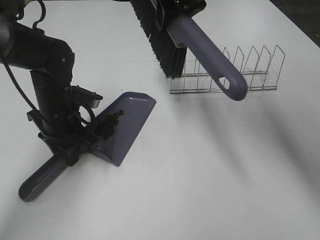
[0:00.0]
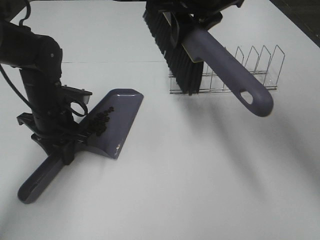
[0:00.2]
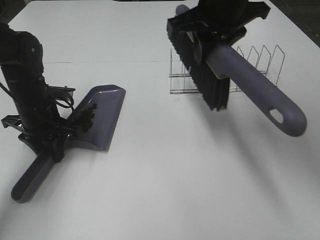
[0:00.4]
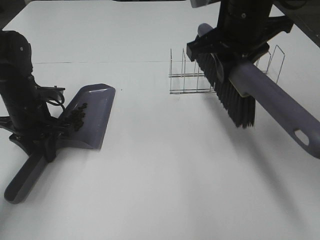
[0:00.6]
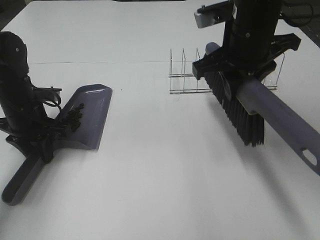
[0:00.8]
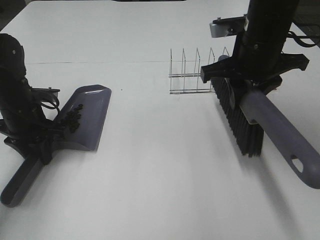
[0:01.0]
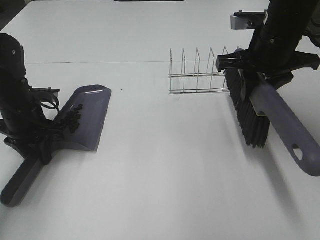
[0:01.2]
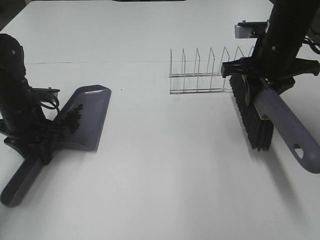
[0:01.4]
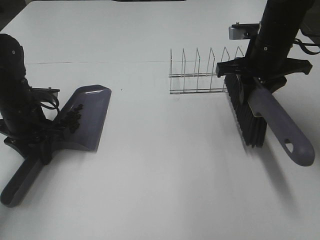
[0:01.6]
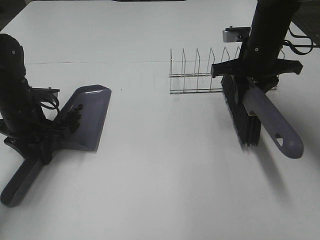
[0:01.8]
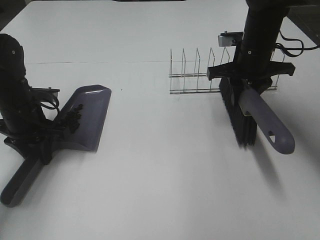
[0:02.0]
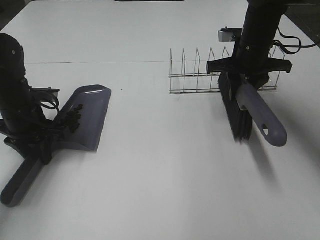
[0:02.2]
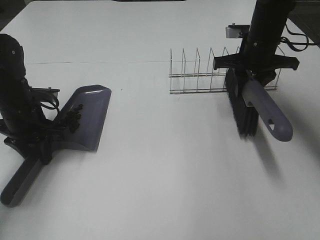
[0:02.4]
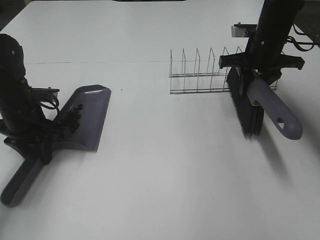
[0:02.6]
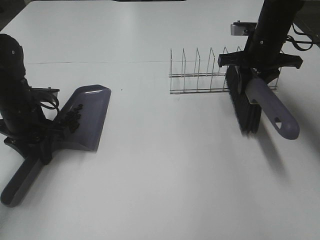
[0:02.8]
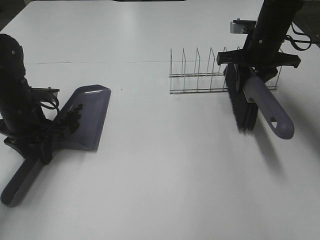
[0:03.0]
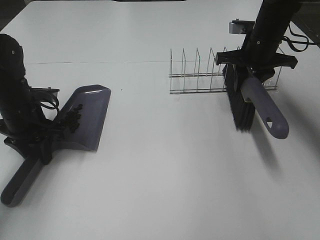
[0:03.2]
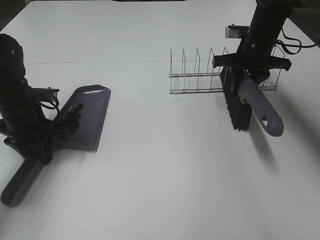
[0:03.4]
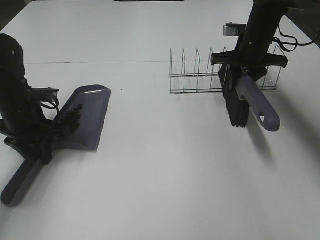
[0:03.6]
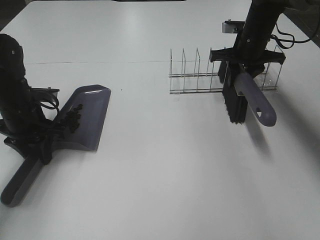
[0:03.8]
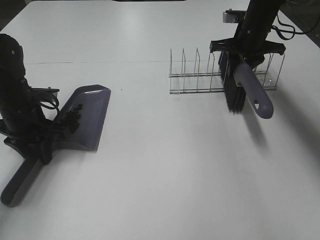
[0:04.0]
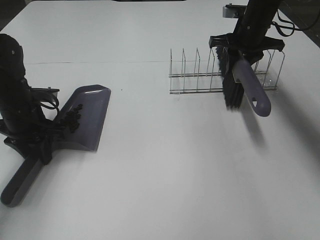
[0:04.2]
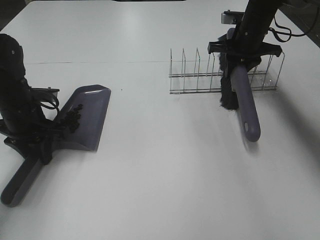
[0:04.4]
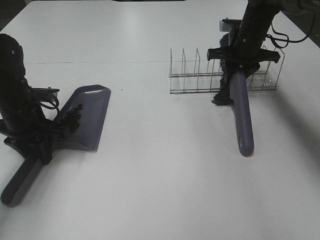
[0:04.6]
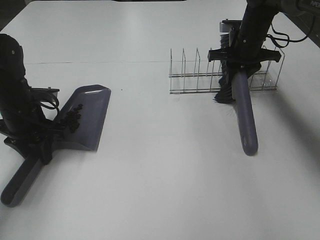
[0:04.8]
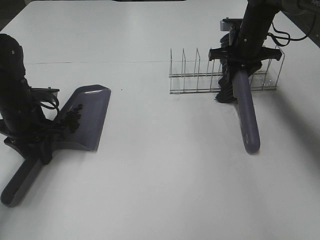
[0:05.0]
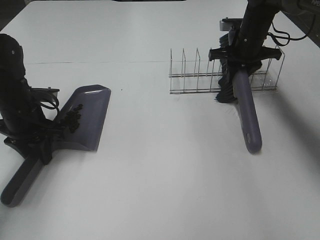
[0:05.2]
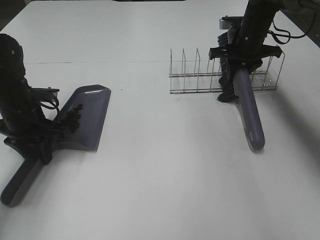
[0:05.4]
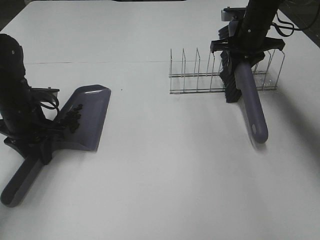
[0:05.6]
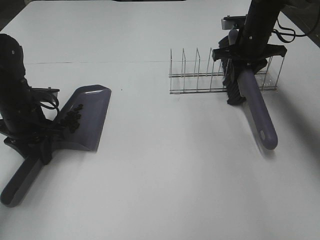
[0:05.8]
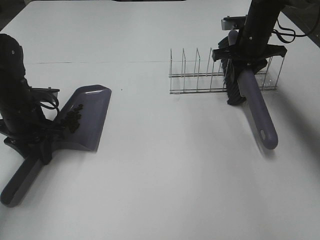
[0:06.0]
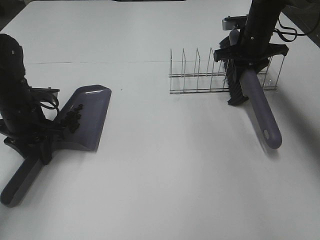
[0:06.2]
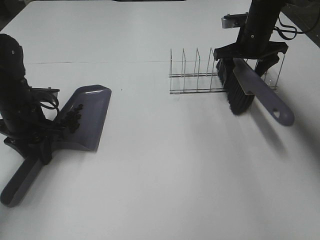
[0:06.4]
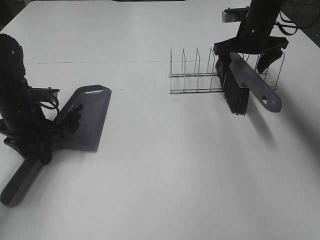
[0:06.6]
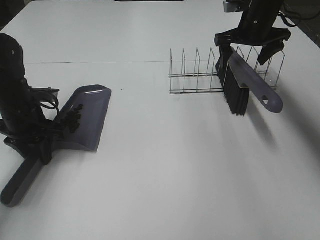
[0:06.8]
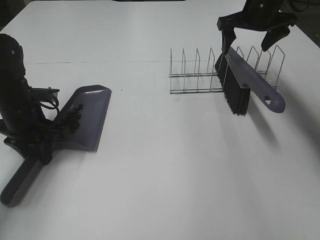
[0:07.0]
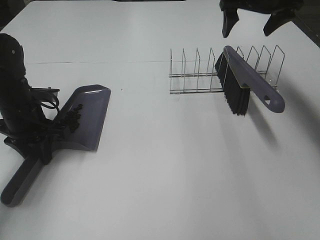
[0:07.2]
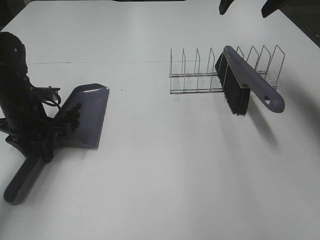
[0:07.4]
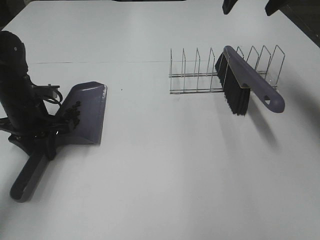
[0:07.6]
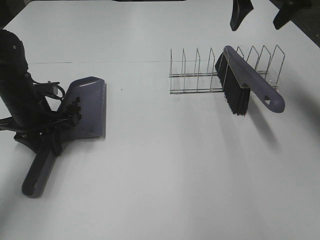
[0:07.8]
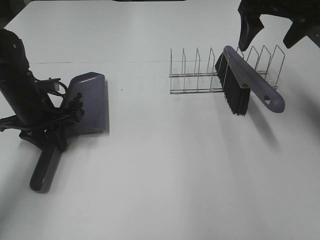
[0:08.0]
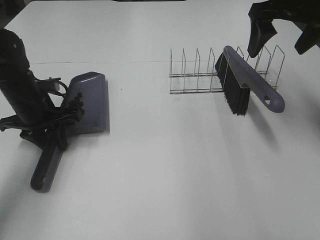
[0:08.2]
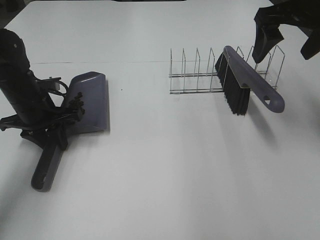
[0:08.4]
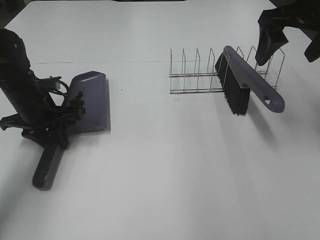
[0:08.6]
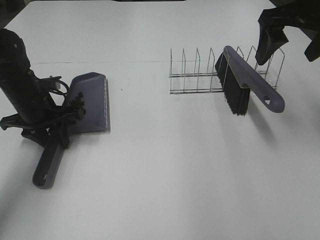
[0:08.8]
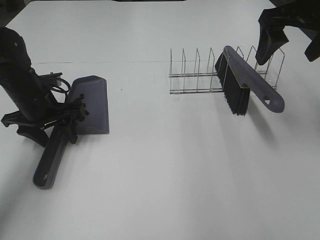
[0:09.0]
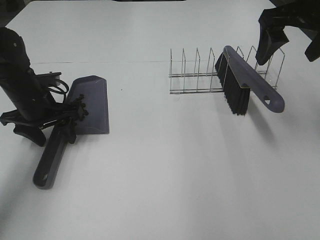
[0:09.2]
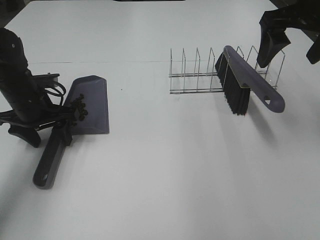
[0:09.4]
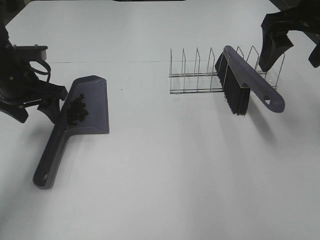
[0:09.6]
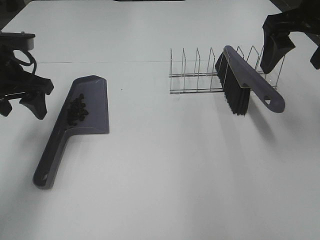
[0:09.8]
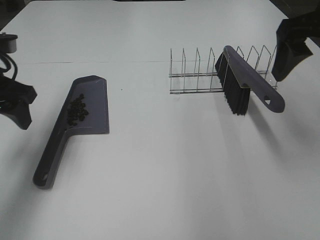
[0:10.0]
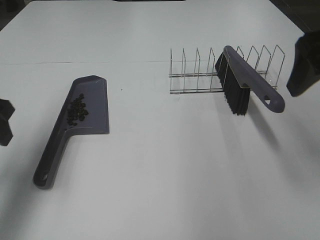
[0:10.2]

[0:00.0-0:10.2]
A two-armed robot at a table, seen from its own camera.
Task of the whole recording: Sweep Coffee Bean.
Step, 0:00.0 to 0:06.6: Right hand:place the broom on the rack.
0:00.0 to 0:01.4: The right gripper heads to the right and downward, covering approximately 15 cm; the left gripper shifts approximately 5 cm to the left.
0:01.4 to 0:03.0: The right gripper moves forward, some 10 cm.
0:03.0 to 0:04.4: The right gripper travels forward by about 5 cm.
0:04.4 to 0:05.8: The grippers stay close to where they were, moving slightly.
0:05.8 to 0:07.2: The right gripper travels upward by some 10 cm, and opens up.
0:07.2 to 0:08.8: The right gripper heads backward, covering roughly 15 cm.
0:08.8 to 0:10.2: The right gripper is displaced backward by approximately 10 cm, while the left gripper shifts about 20 cm upward and backward, and opens.

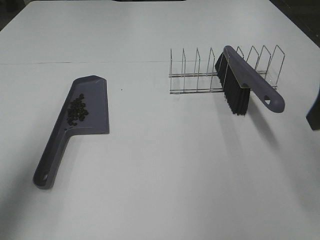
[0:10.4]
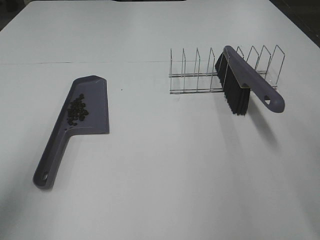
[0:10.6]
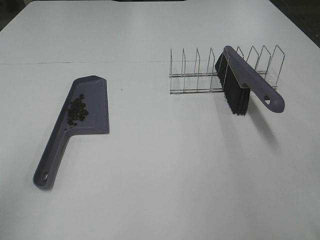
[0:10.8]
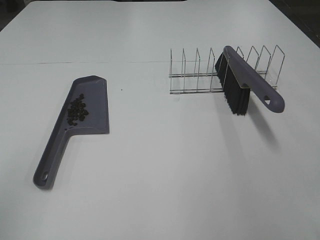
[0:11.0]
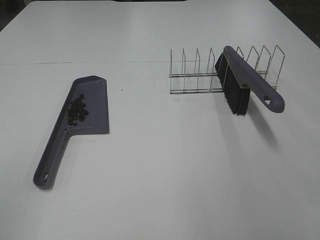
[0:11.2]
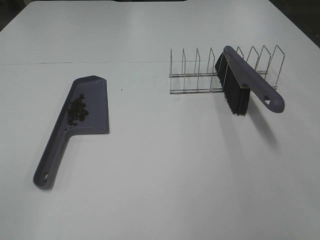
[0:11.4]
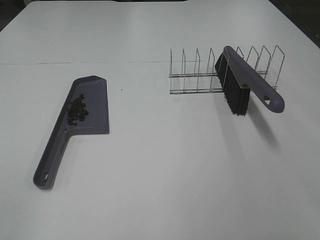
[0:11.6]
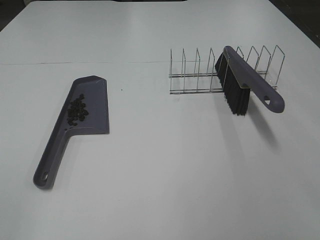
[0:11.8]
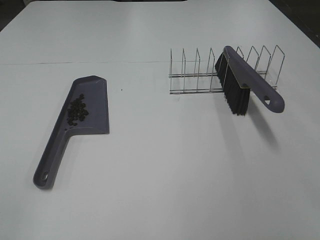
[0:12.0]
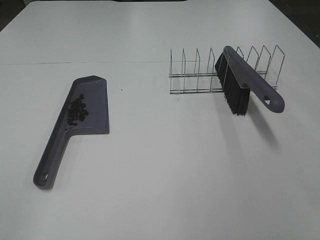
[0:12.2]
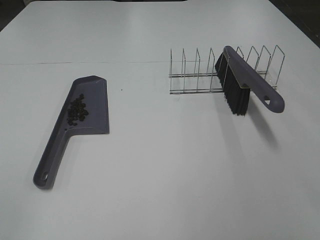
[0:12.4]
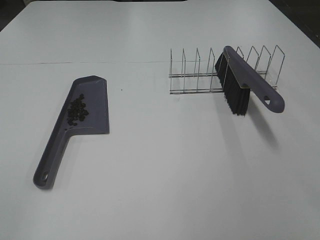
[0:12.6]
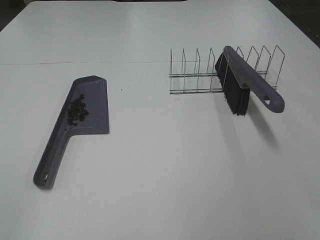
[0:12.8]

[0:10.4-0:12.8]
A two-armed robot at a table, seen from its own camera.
Task of the whole recording: Sweep Coffee Bean.
0:10.4 to 0:11.6: Both grippers move backward, approximately 20 cm.
0:11.6 to 0:12.8: Neither gripper changes place.

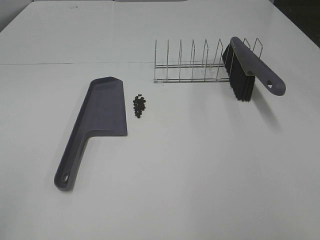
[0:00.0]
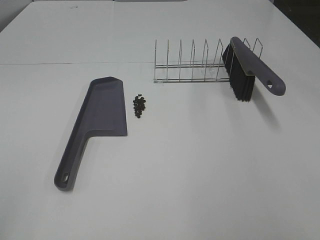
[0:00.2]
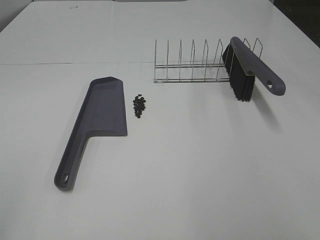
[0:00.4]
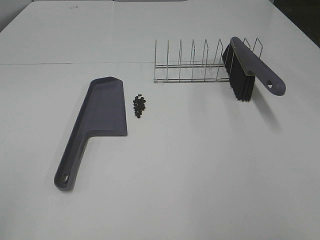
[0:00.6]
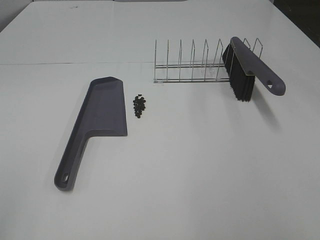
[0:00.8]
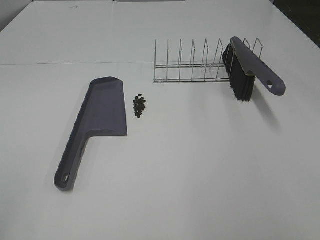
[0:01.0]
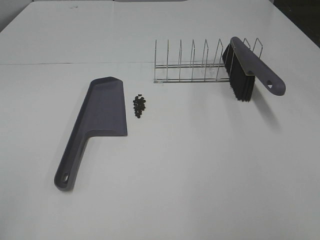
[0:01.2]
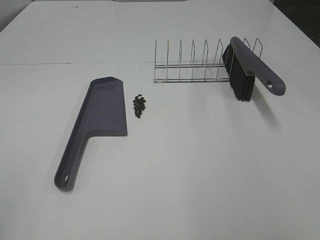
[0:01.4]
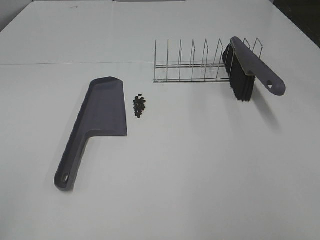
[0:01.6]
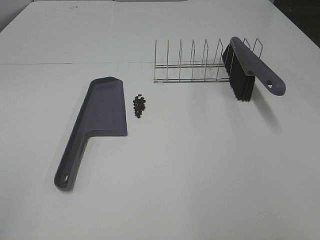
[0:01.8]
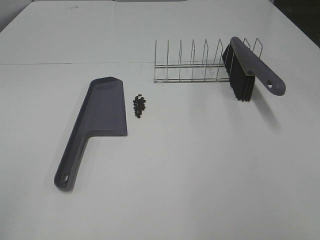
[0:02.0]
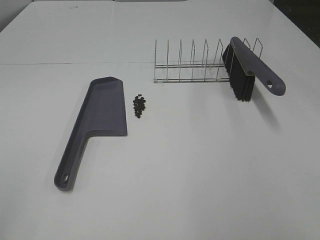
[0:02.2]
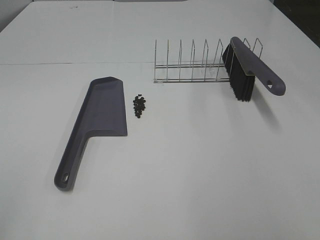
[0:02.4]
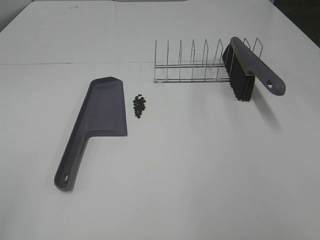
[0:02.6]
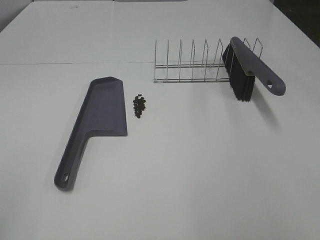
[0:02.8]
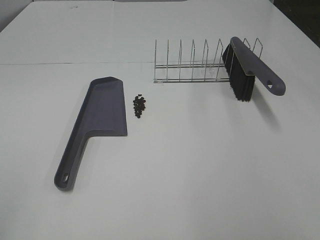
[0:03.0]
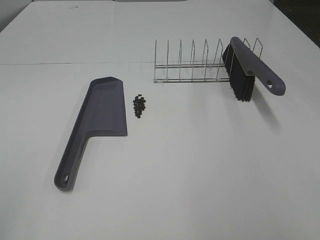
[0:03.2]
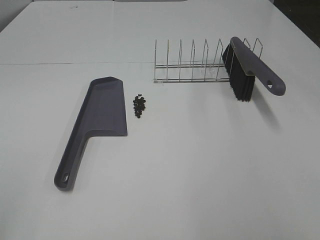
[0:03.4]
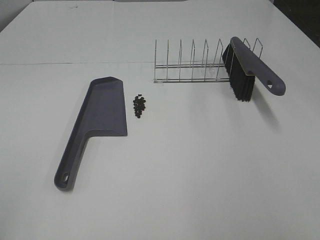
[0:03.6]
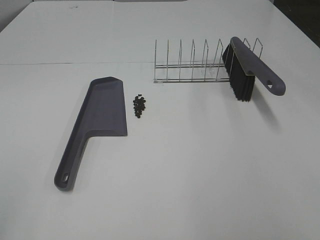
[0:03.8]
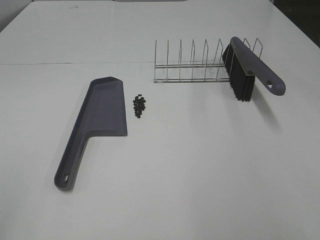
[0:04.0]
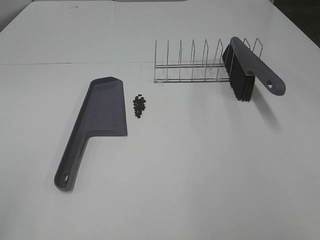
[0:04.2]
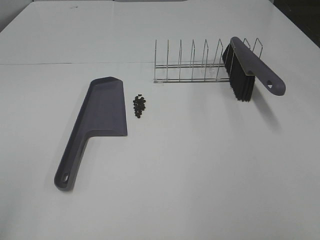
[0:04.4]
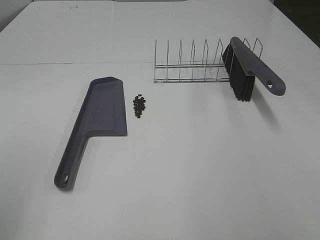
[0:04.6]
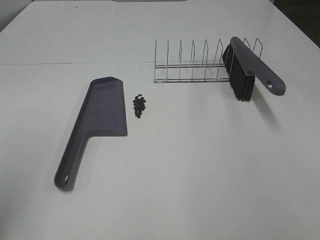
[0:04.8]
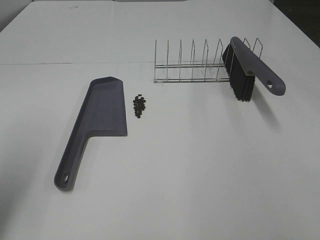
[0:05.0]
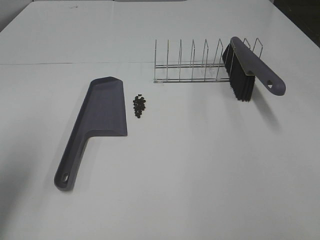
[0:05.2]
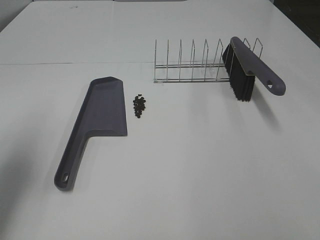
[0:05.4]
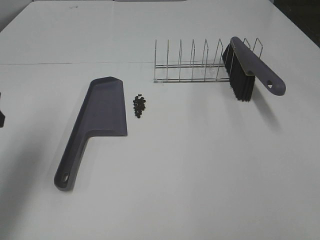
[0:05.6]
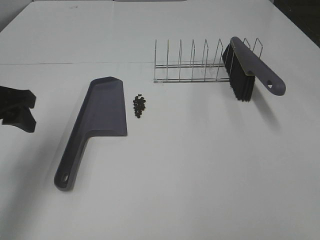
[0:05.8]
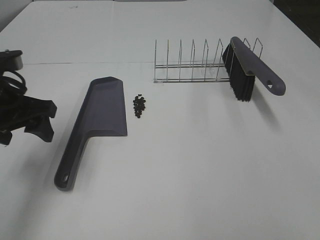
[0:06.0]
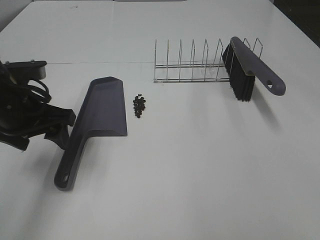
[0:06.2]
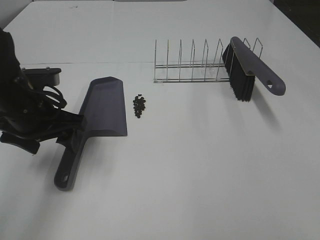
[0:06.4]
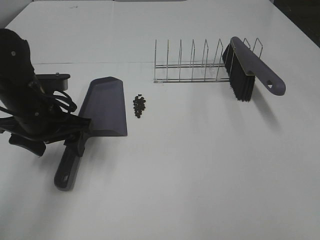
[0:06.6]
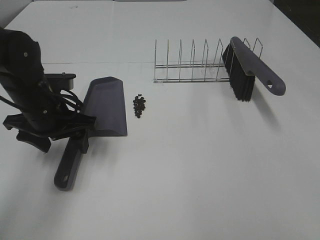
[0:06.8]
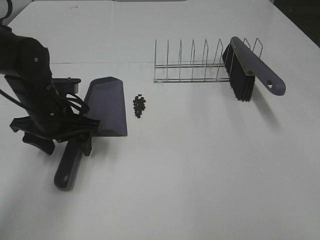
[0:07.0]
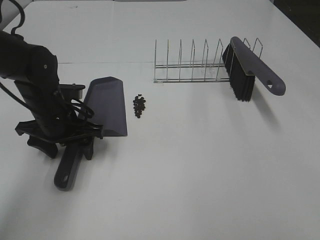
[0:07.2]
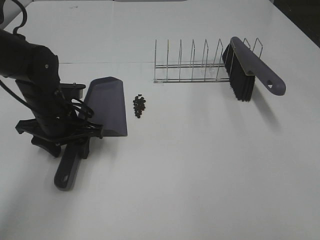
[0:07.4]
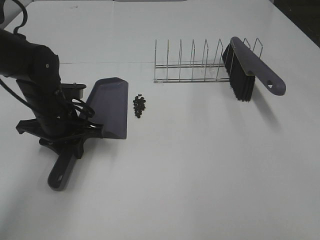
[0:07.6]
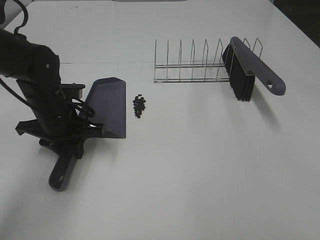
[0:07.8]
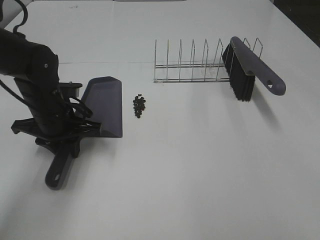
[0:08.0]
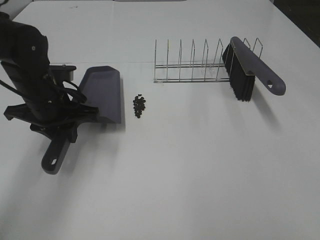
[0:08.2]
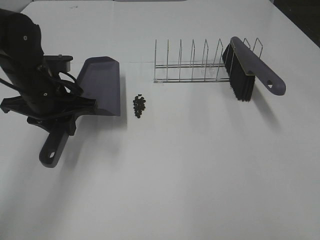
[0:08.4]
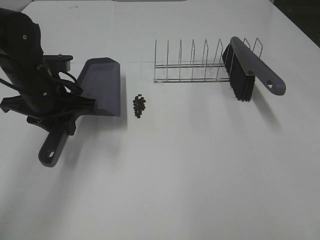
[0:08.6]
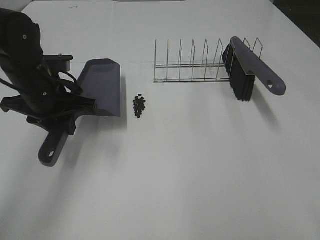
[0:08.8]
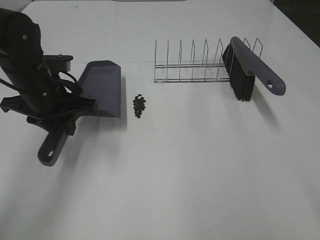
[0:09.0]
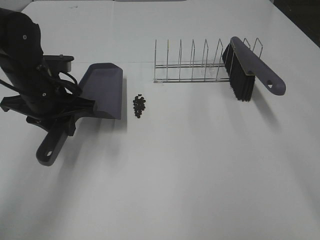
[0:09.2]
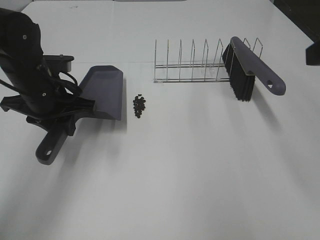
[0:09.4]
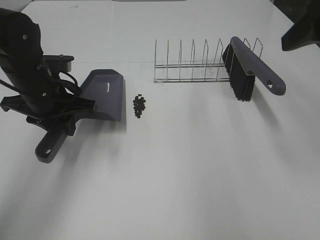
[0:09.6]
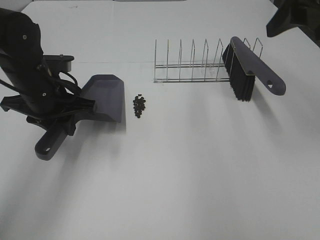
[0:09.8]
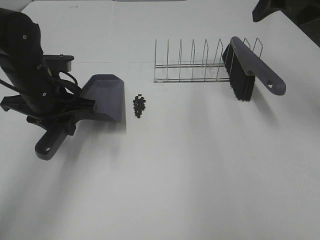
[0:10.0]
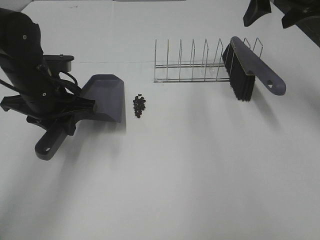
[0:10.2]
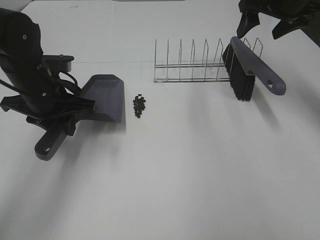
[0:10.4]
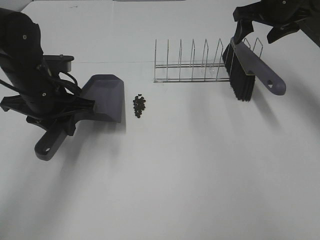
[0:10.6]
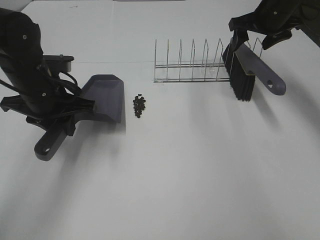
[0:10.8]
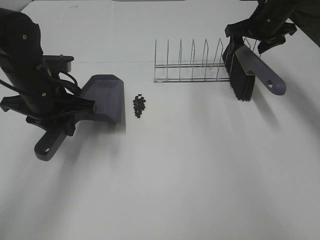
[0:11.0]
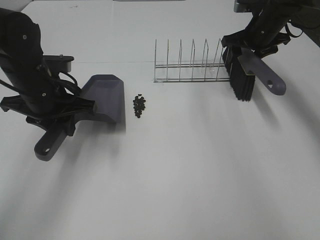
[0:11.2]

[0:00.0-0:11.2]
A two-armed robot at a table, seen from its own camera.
Task of the whole recording: Sweep Coffee Bean.
Step, 0:00.0 to 0:07.6: Left hand: grab the dustpan.
0:00.0 to 0:03.2: The two grippers keep their place.
0:04.8 to 0:06.4: The left gripper shifts about 25 cm forward, downward and to the right.
0:06.4 to 0:08.0: The left gripper moves roughly 5 cm, and closes up.
0:08.0 to 0:09.6: The right gripper is displaced forward by about 25 cm.
0:09.6 to 0:11.2: The right gripper heads forward and downward, covering roughly 30 cm, and closes.
